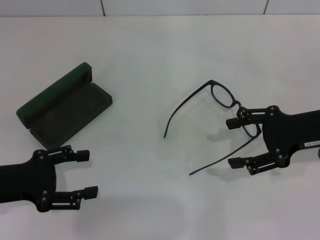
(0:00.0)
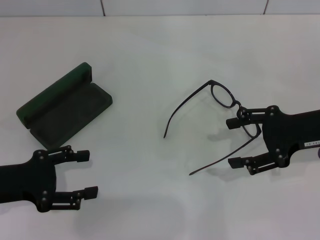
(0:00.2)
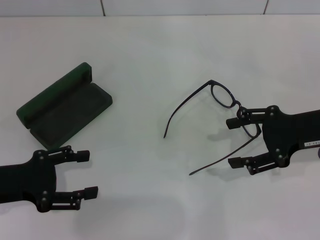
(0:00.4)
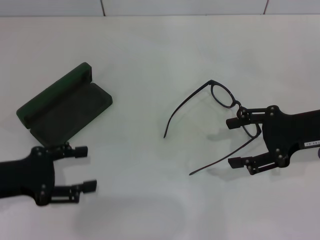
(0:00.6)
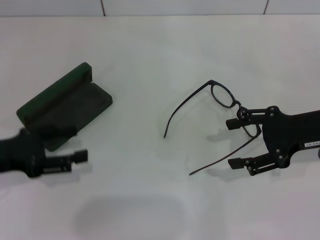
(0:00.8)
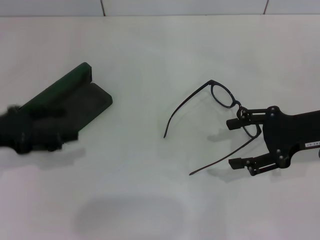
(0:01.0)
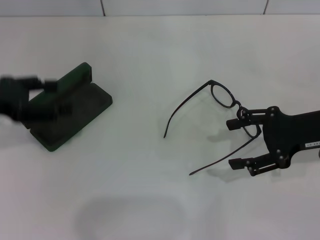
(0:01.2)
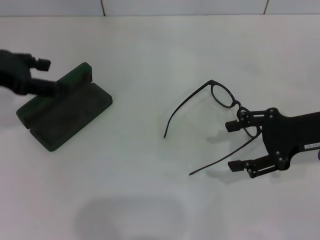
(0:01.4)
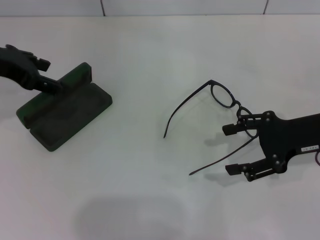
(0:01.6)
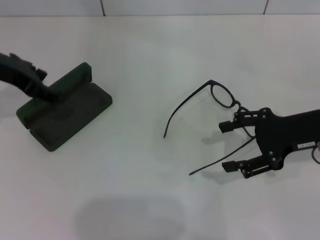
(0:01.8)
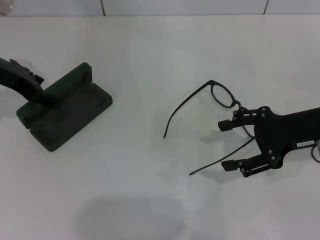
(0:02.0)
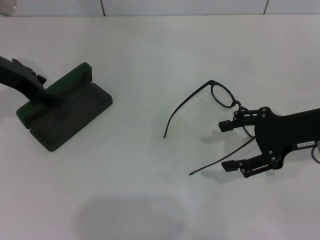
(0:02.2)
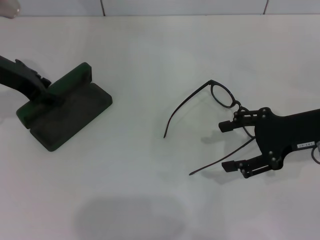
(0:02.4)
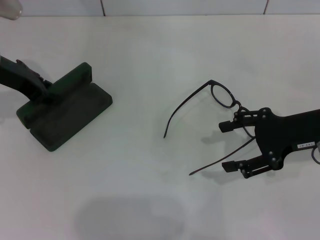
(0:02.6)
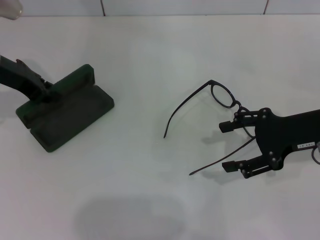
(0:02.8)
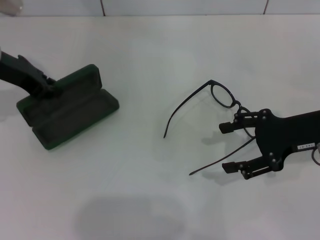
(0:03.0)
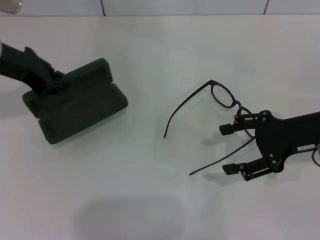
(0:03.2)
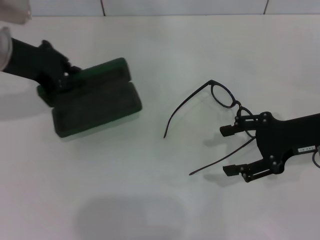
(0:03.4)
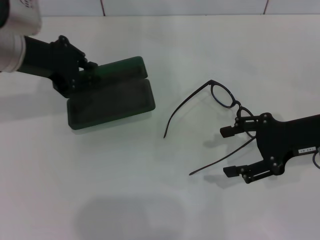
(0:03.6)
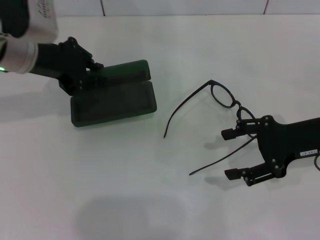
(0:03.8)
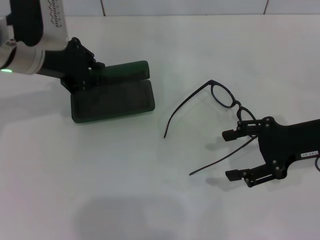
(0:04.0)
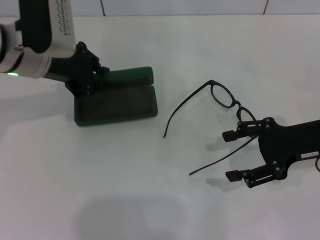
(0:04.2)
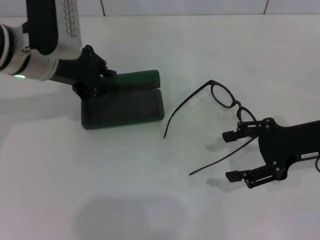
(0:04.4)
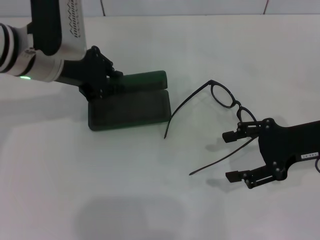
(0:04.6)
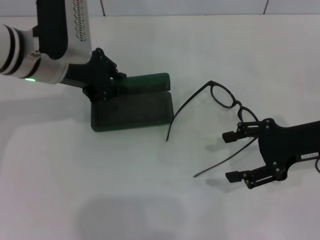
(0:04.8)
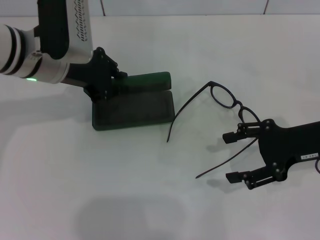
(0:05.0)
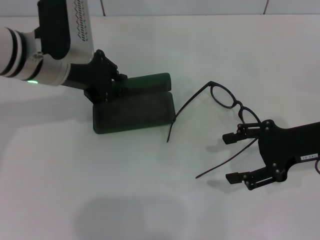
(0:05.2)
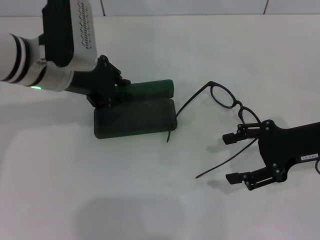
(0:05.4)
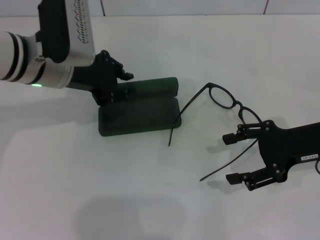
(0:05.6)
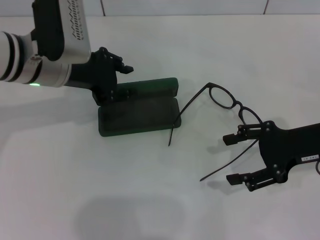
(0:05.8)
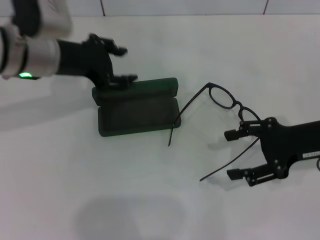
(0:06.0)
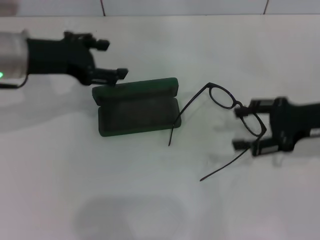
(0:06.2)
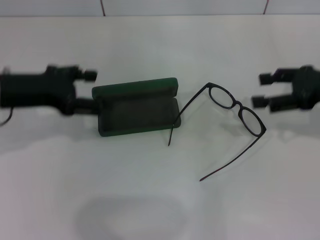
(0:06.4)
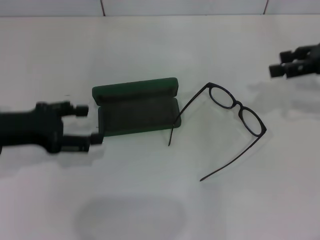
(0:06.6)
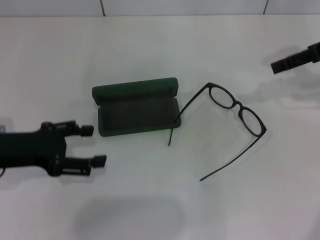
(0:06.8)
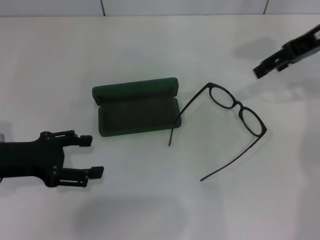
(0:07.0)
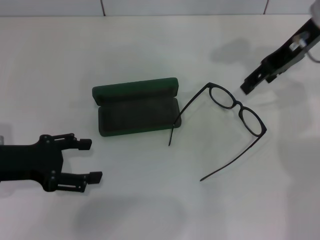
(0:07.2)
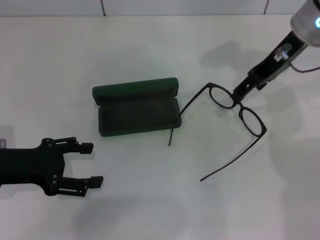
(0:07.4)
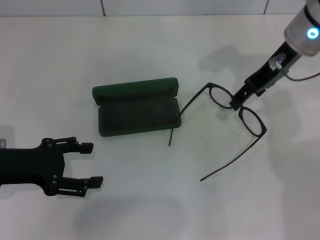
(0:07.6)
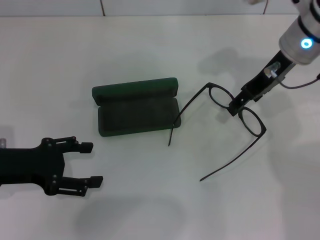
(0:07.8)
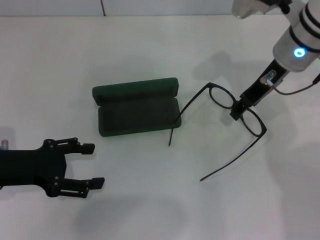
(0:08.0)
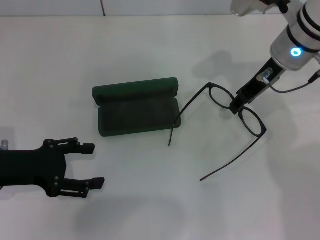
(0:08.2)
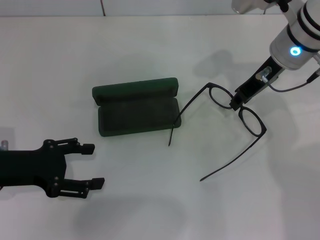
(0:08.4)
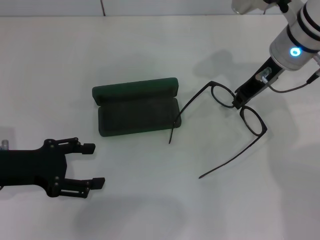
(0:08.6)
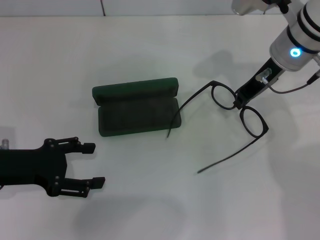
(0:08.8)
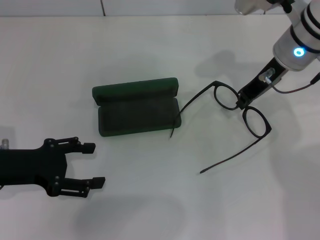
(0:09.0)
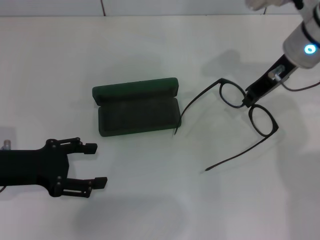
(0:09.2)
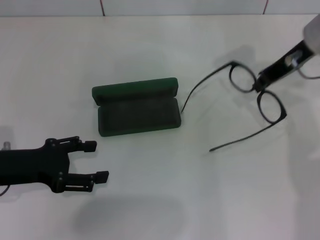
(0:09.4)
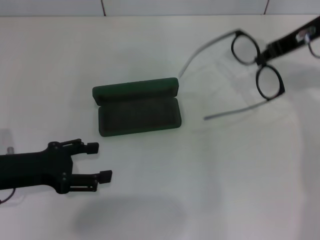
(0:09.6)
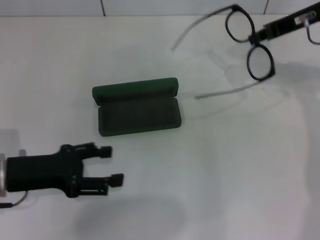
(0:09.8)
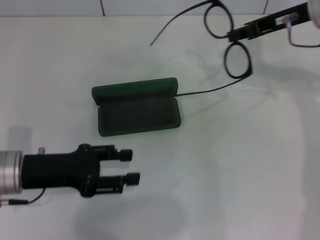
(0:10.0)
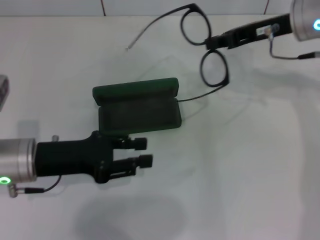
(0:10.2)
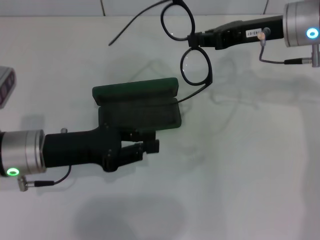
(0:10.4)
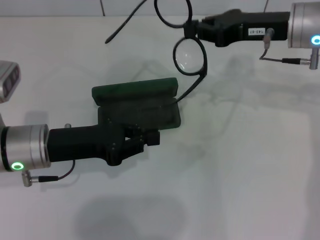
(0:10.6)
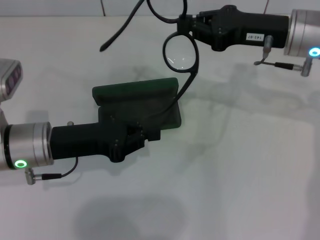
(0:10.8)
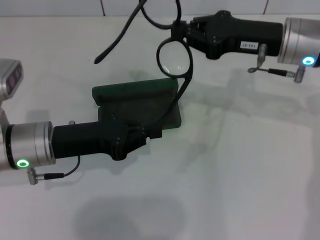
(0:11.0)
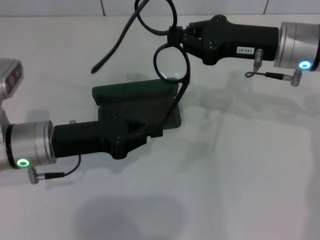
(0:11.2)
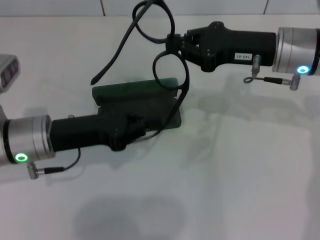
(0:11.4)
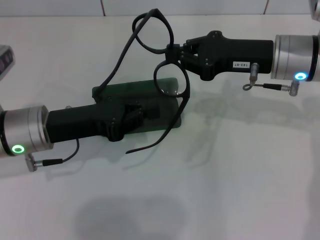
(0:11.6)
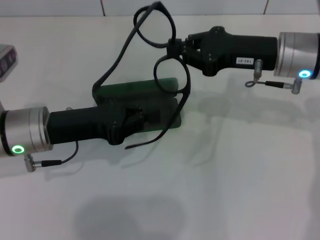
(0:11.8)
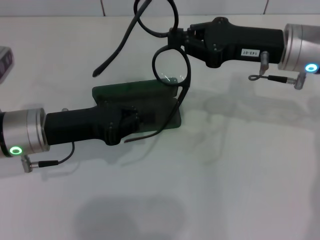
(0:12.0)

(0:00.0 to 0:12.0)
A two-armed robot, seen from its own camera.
Step, 0:00.0 - 0:02.6: Grab the glasses case with your left hand.
Step, 0:02.8 - 0:05.4: Place the glasses case in the center of the table with your left hand.
Step, 0:05.6 - 0:08.6: Grab the eyeglass frame with your right hand.
0:00.0 - 0:01.6: The left gripper shifts roughly 20 cm forward and upward.
0:01.6 - 0:03.0: The left gripper closes.
0:03.0 - 0:04.4: The left gripper heads to the right, covering about 5 cm.
0:04.4 - 0:06.0: The grippers stay close to where they were, moving slightly.
0:06.0 - 0:07.6: The left gripper is displaced backward, to the left and downward by approximately 15 cm, and opens up, while the right gripper shifts approximately 15 cm forward, to the left and upward.
0:07.6 - 0:09.0: The right gripper closes up.
0:09.0 - 0:10.4: The left gripper shifts about 5 cm to the right, and closes.
0:10.4 - 0:12.0: The left gripper closes up.

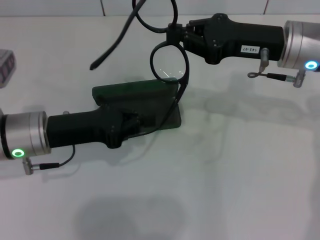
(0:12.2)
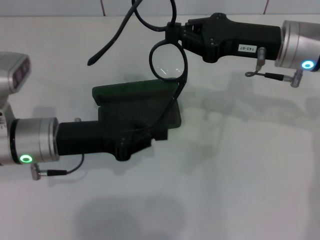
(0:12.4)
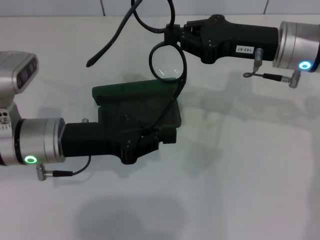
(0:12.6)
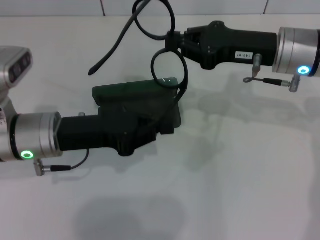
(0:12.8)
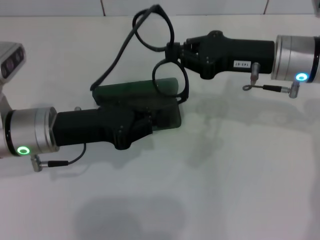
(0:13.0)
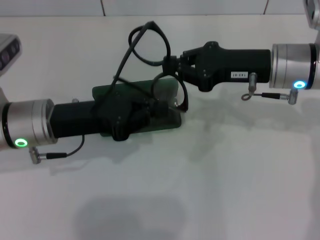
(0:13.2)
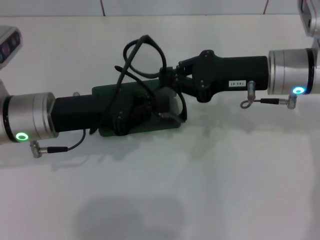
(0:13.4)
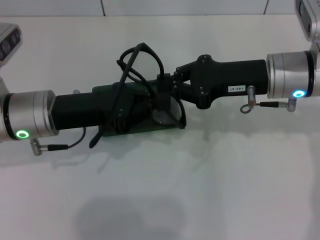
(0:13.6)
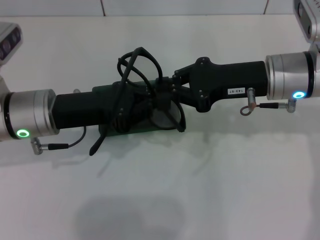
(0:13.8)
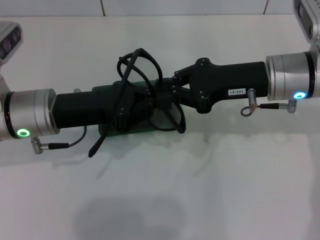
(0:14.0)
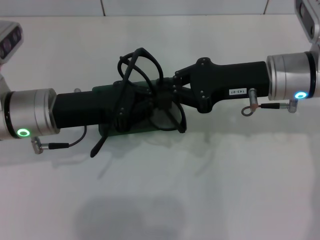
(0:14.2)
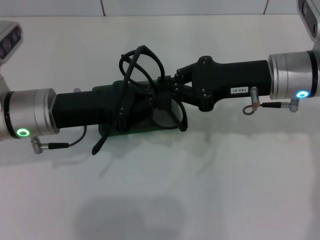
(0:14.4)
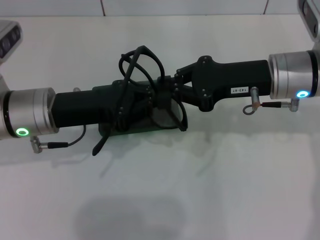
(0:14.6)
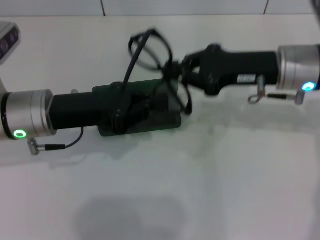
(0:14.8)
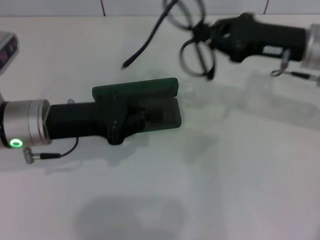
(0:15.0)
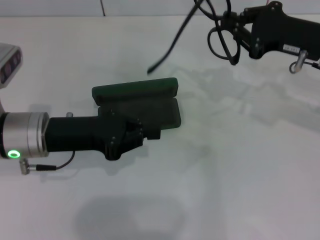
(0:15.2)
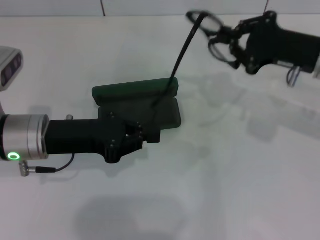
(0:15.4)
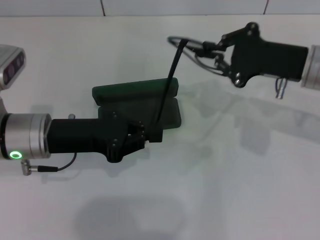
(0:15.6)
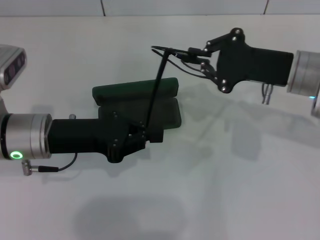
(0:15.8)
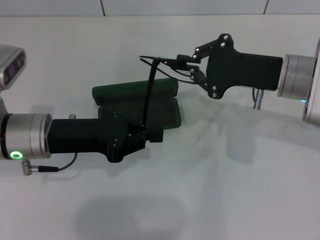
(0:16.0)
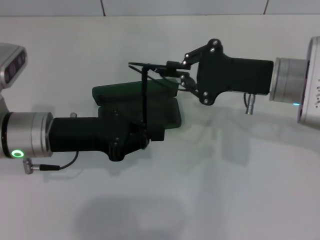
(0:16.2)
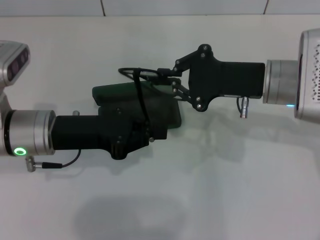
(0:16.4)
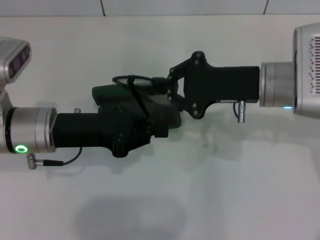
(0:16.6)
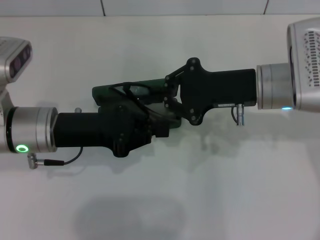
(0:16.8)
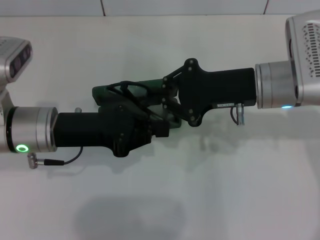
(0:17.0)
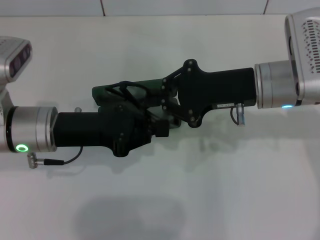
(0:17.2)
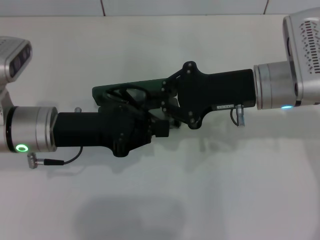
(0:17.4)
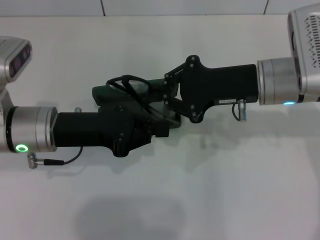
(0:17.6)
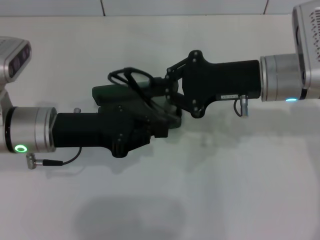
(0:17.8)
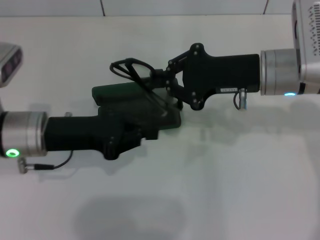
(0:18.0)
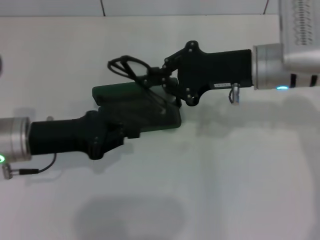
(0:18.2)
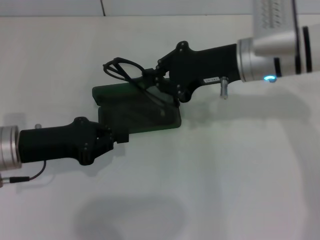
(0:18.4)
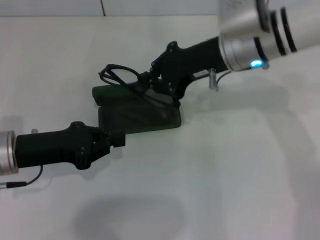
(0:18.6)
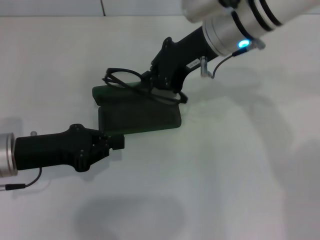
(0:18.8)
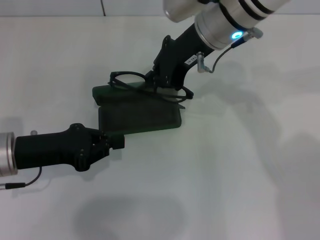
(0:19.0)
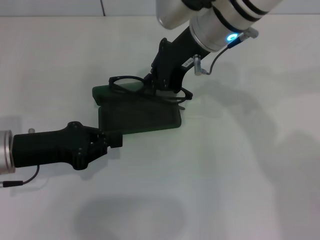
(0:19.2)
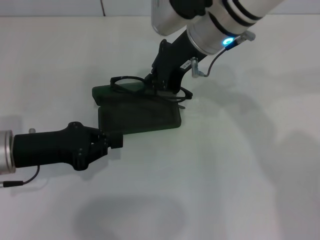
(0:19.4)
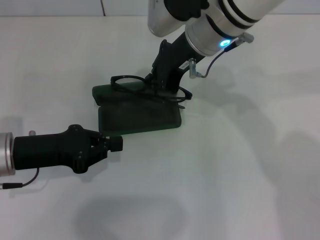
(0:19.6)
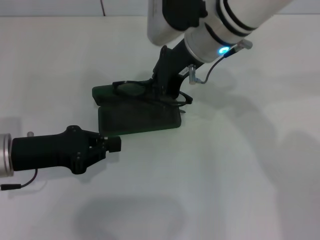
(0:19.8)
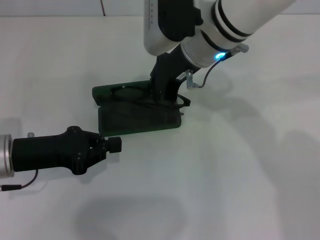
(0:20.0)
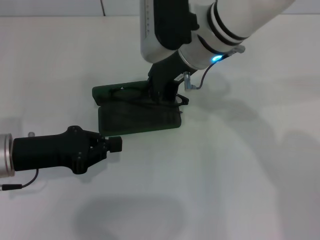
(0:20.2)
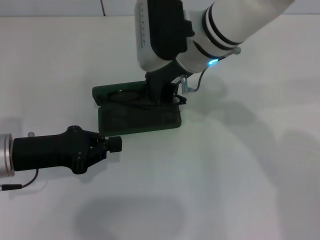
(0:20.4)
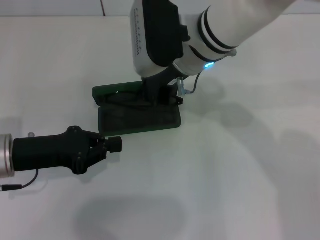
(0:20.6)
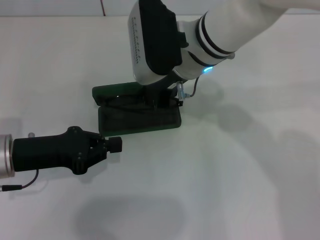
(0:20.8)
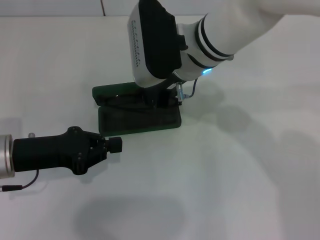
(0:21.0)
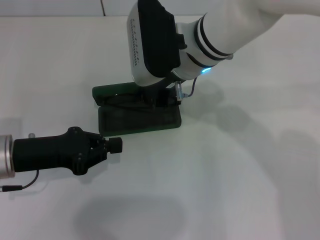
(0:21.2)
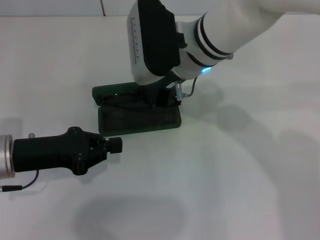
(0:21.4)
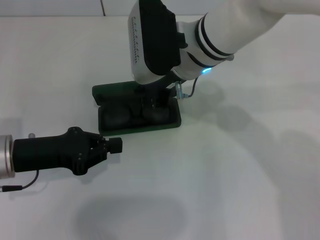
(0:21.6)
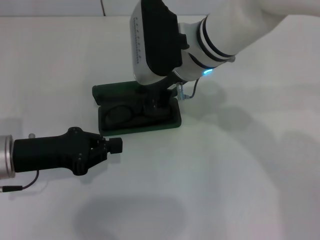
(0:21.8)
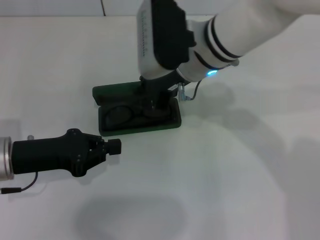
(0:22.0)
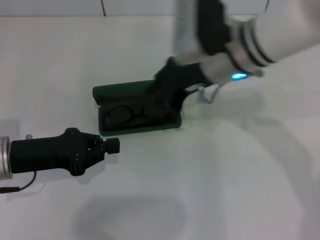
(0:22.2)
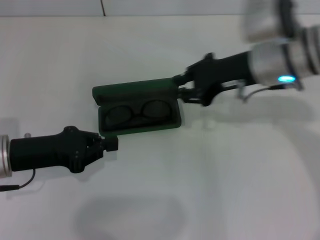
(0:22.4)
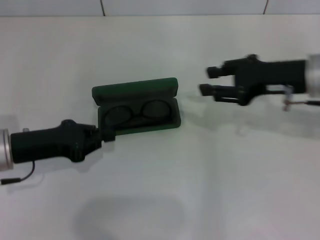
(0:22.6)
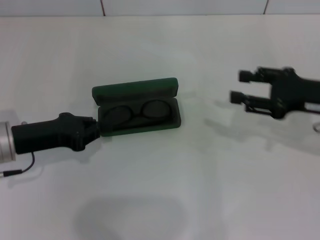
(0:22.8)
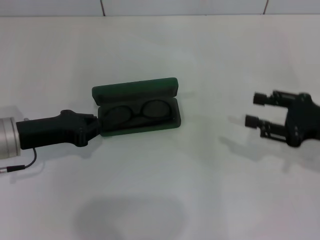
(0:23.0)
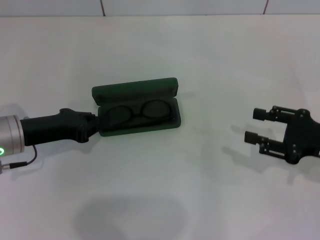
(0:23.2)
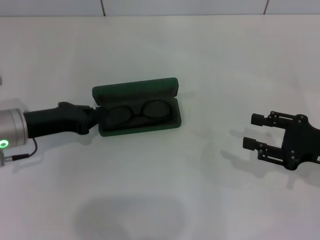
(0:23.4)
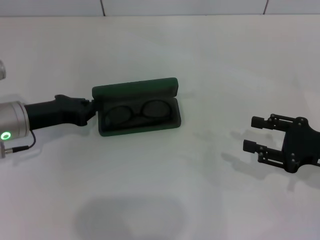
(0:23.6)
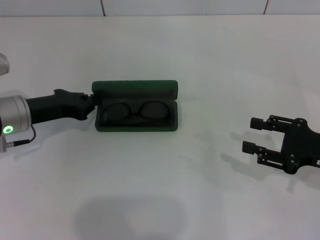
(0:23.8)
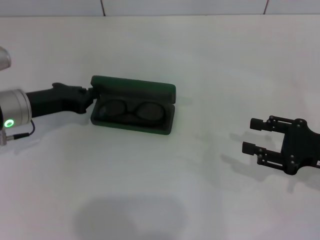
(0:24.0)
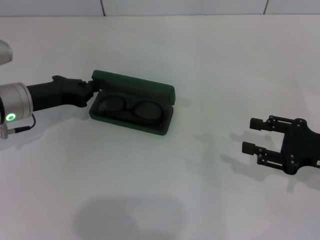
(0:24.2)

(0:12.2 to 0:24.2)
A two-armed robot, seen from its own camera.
Step, 0:12.2 - 0:17.6: Fold the frame with your left hand.
Step, 0:17.8 - 0:22.0: Put the glasses into the case with your right hand.
0:13.8 - 0:15.2: The right gripper travels to the right by approximately 10 cm.
0:15.2 - 0:16.6: The right gripper goes roughly 10 cm to the left.
0:18.2 - 0:19.8: The right gripper shifts about 10 cm to the left.
0:19.8 - 0:21.2: There are only small adjustments of the grippers.
0:21.2 - 0:22.6: The right gripper travels to the right by about 20 cm.
0:22.6 - 0:24.2: The right gripper is displaced backward, downward and to the right by about 15 cm, and opens. Meanwhile the left gripper travels forward by about 10 cm.
